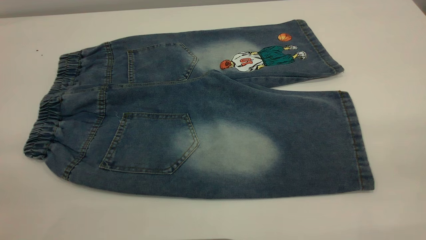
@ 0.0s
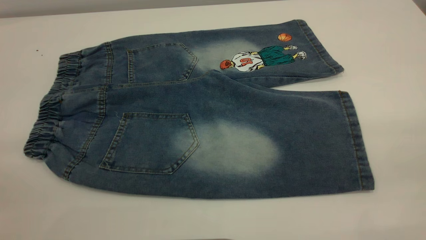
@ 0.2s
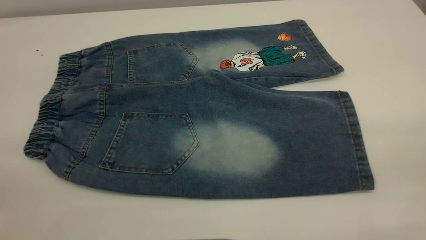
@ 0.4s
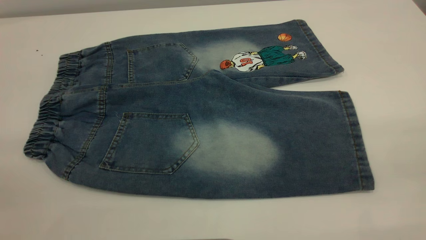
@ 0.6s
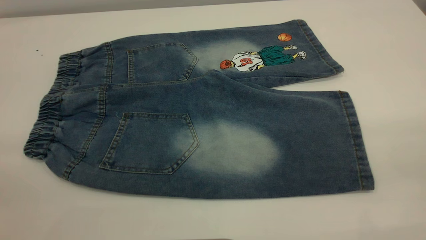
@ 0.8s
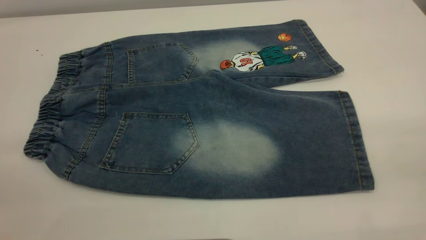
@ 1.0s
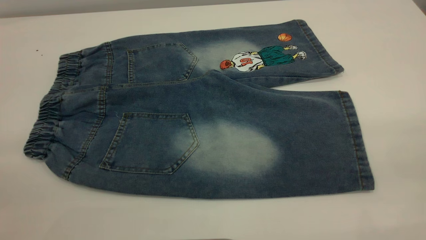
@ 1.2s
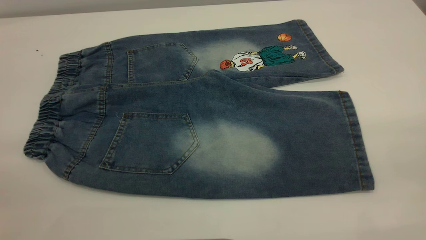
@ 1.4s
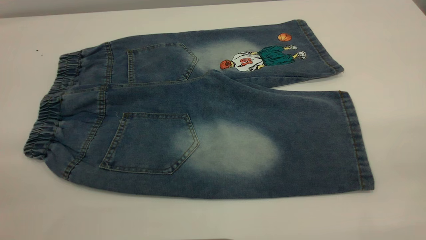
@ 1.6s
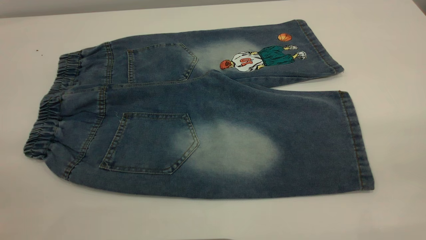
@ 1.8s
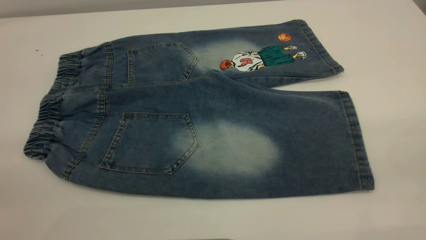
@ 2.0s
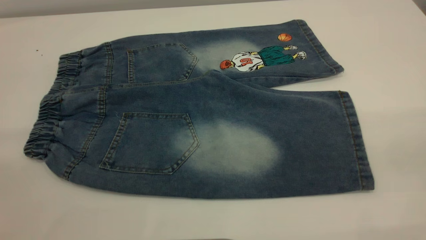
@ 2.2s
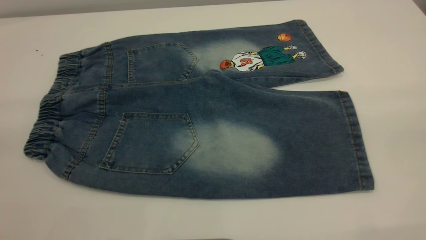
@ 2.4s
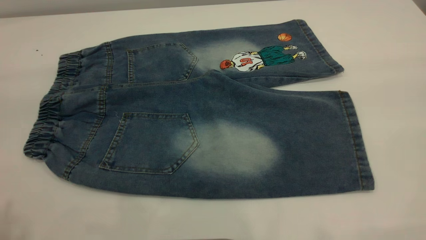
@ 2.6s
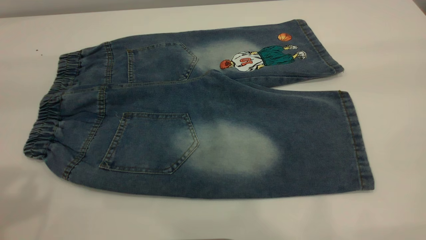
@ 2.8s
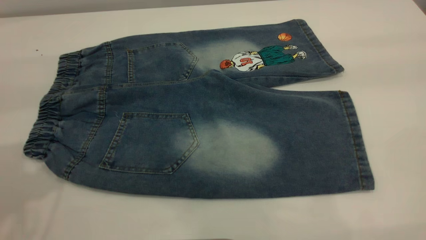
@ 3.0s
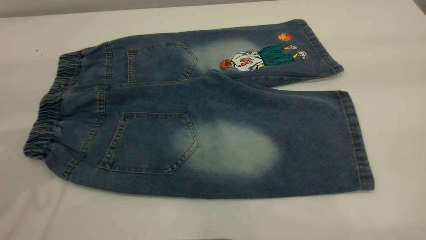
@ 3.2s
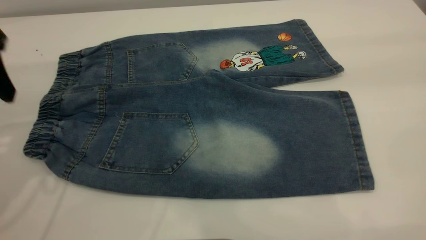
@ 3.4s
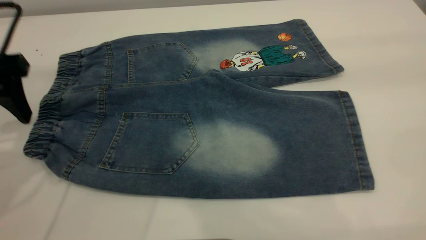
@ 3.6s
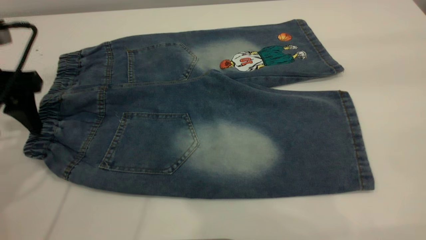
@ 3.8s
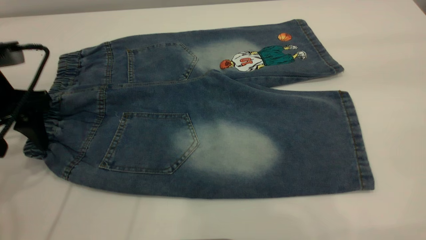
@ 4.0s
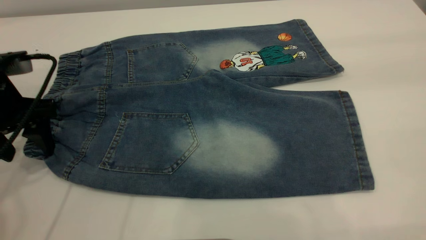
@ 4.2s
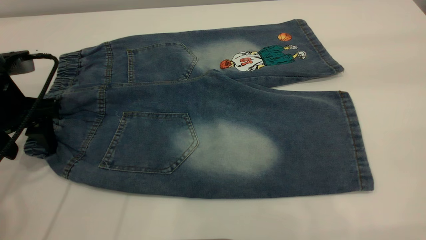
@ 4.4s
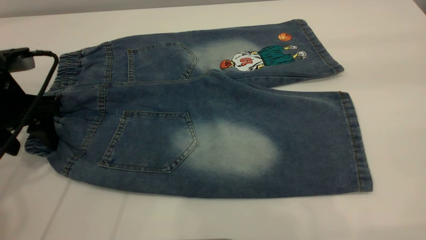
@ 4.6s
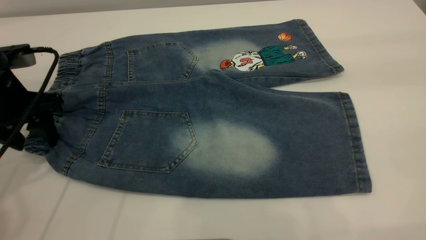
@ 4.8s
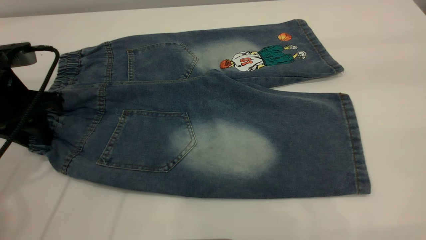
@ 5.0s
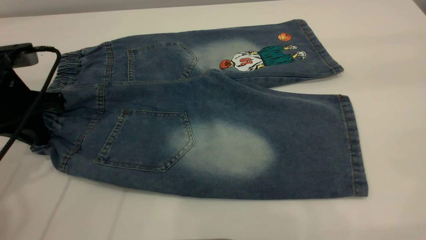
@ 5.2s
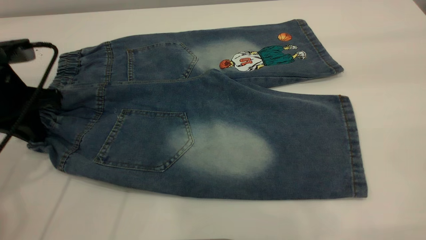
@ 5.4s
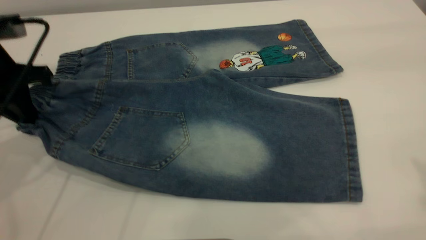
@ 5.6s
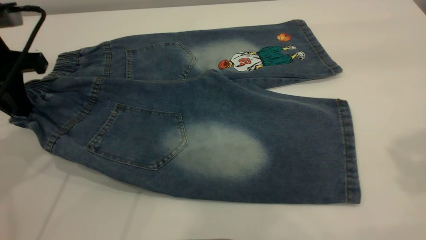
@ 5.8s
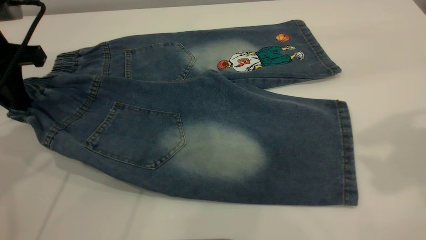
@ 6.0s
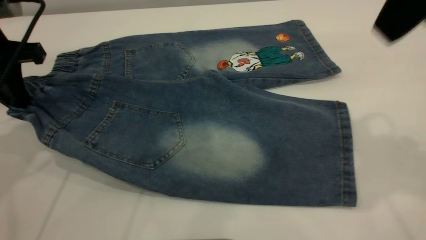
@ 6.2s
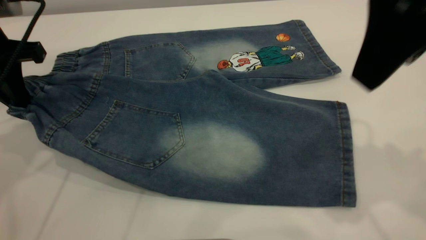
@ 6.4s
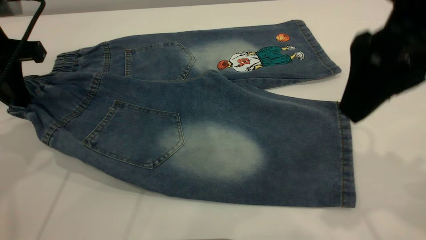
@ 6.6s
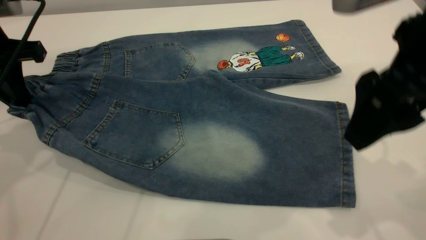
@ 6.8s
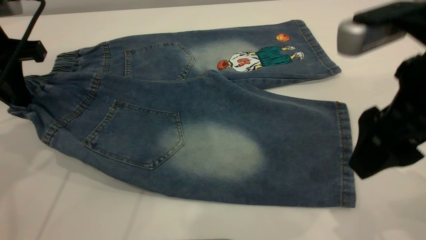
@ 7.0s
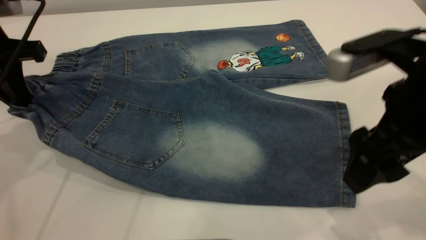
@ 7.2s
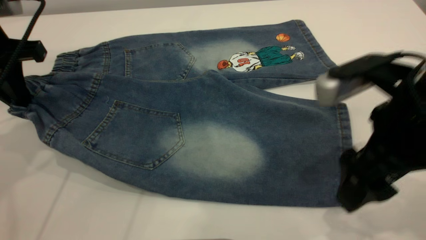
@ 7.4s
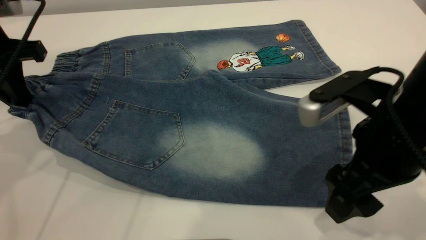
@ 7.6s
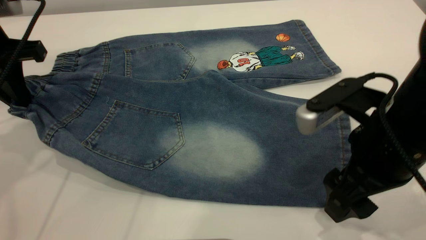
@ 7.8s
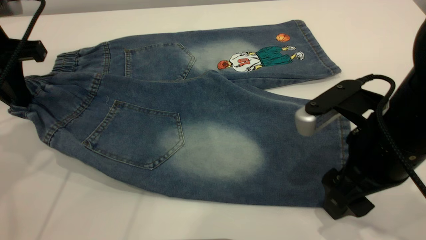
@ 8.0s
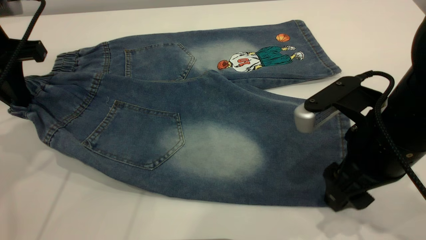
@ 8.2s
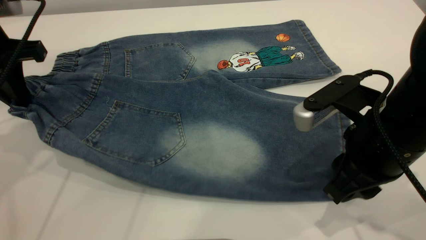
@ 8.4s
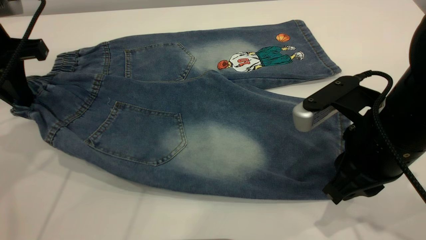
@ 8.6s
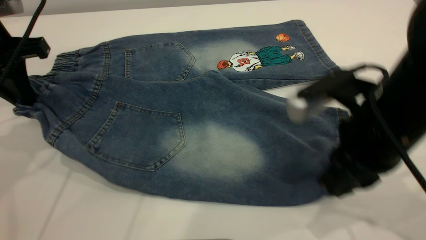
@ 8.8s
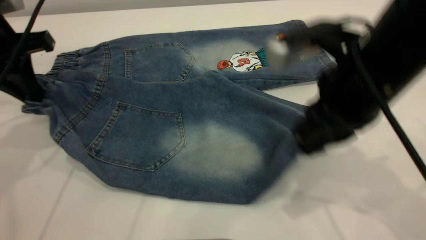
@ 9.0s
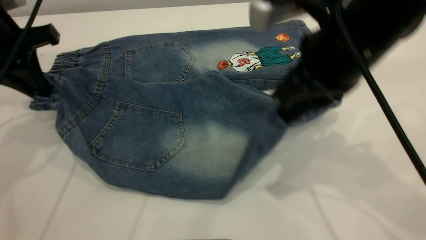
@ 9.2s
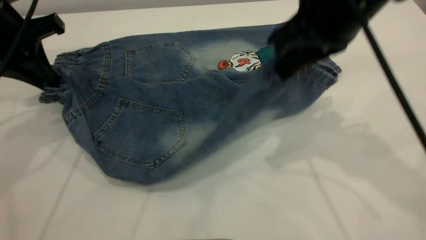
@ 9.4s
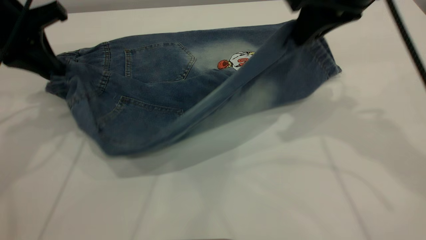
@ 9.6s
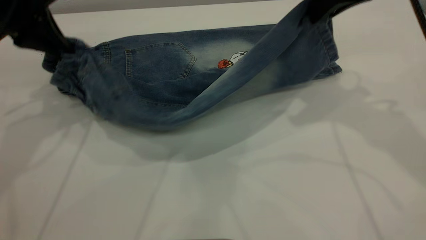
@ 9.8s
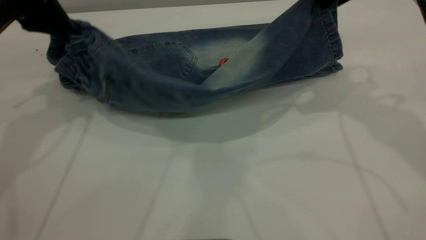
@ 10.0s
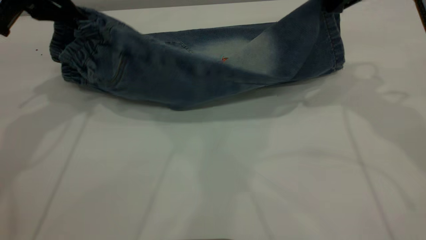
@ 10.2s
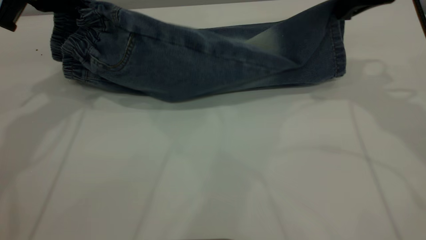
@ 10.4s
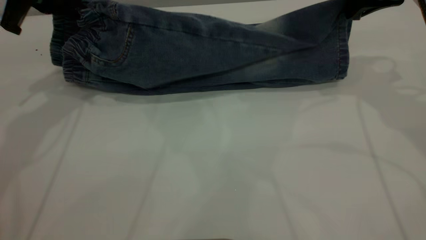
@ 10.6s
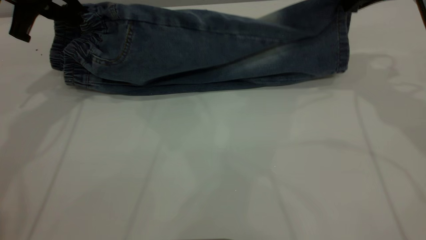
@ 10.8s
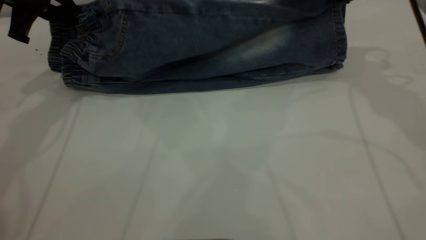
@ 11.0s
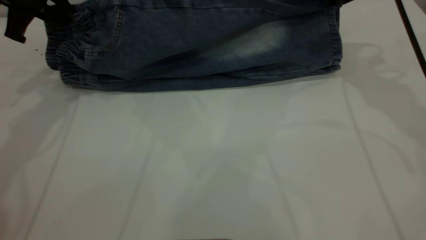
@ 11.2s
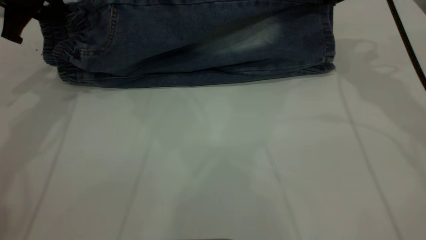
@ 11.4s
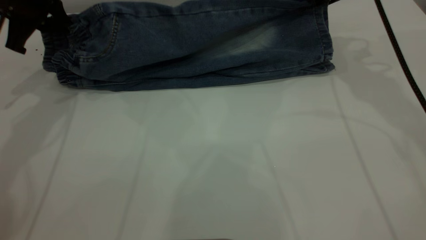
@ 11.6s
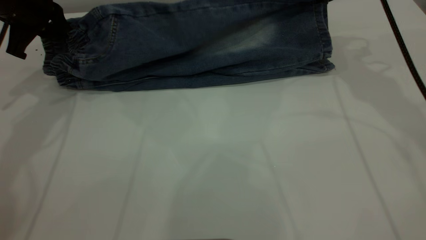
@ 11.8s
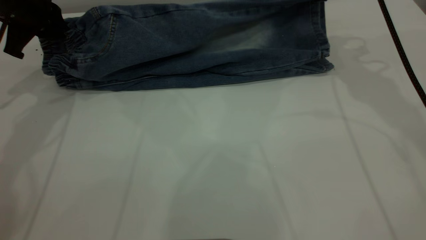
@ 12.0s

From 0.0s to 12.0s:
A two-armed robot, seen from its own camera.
From 0.0s to 1.6s: Neither gripper changes place.
From 3.0s to 4.4s: The left gripper moves downward and forward, roughly 20 cm.
From 4.4s to 6.0s: The right gripper shifts some 10 cm forward and downward. Meanwhile the left gripper goes roughly 5 cm upward, and closes its fingers.
From 6.0s to 7.6s: The right gripper goes about 20 cm downward.
From 7.6s to 9.0s: The right gripper is displaced upward by roughly 5 cm, and closes.
From 9.0s to 10.4s: The right gripper shifts approximately 15 cm forward and to the right. Meanwhile the left gripper heads forward, covering roughly 5 cm.
From 10.4s to 12.0s: The left gripper travels downward by about 5 cm. The right gripper travels forward by roughly 5 cm.

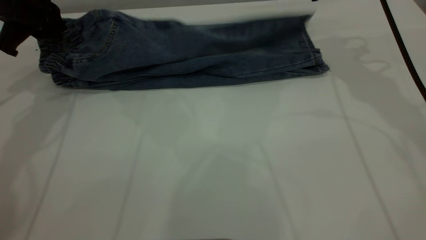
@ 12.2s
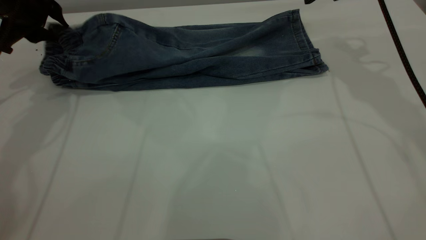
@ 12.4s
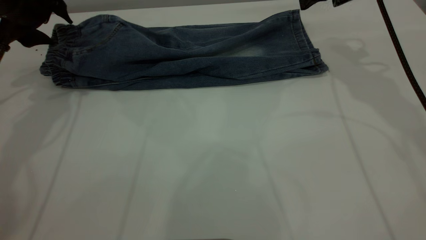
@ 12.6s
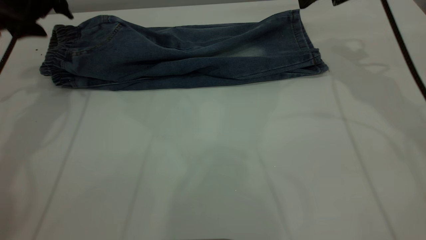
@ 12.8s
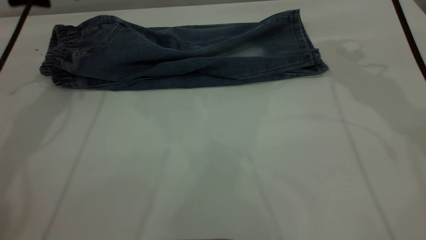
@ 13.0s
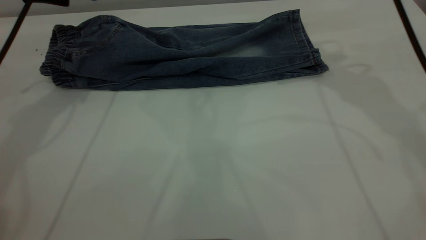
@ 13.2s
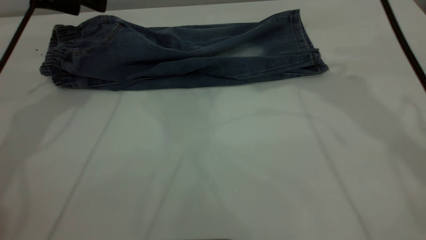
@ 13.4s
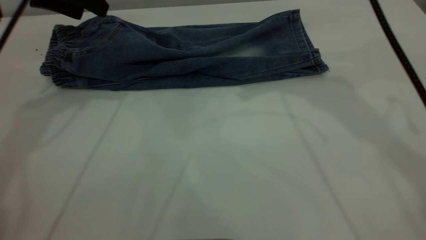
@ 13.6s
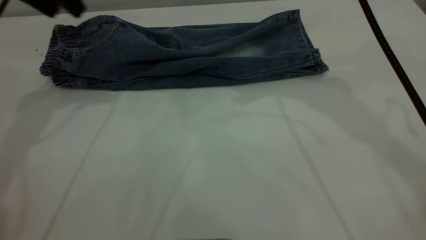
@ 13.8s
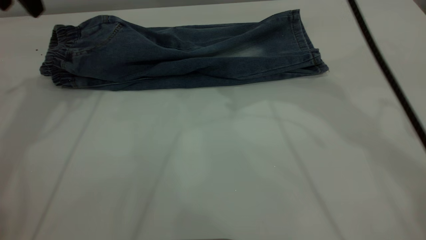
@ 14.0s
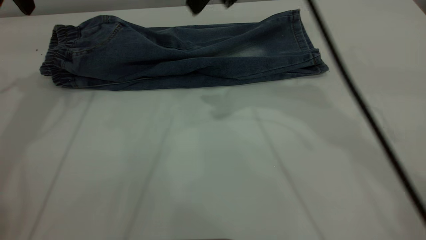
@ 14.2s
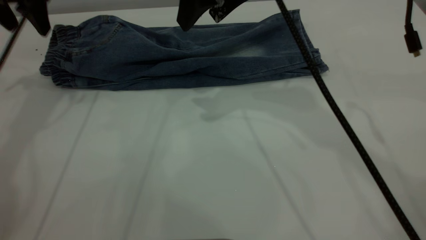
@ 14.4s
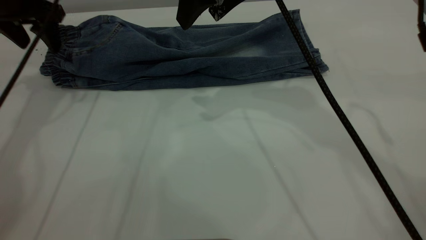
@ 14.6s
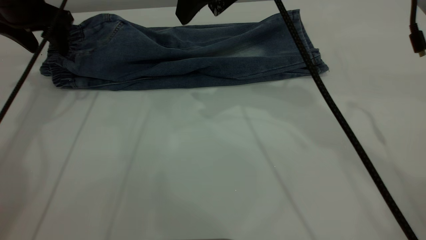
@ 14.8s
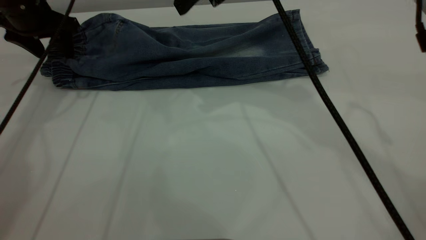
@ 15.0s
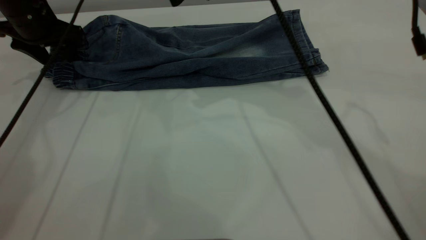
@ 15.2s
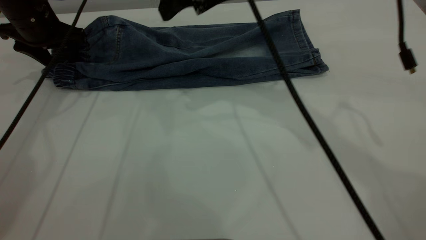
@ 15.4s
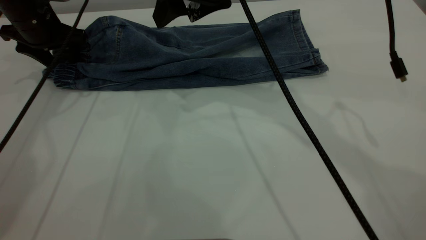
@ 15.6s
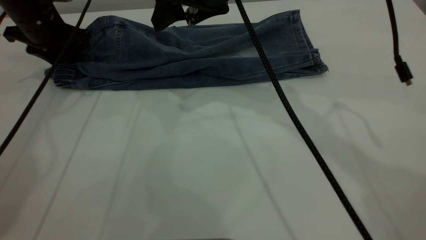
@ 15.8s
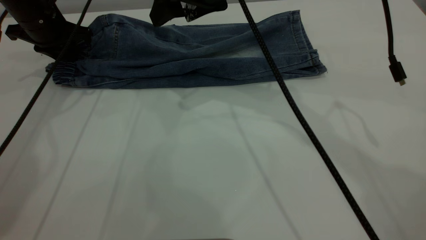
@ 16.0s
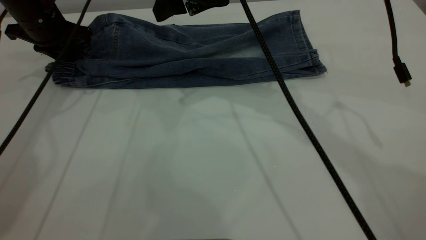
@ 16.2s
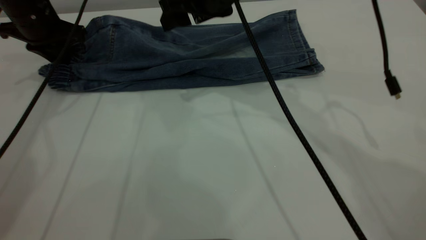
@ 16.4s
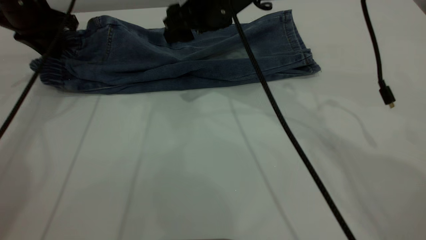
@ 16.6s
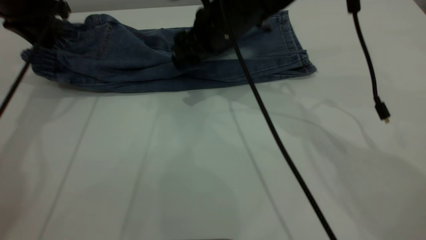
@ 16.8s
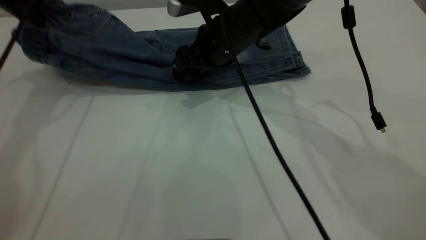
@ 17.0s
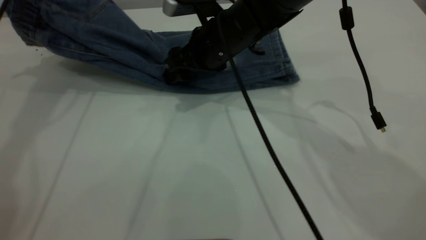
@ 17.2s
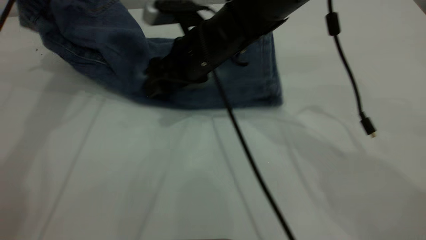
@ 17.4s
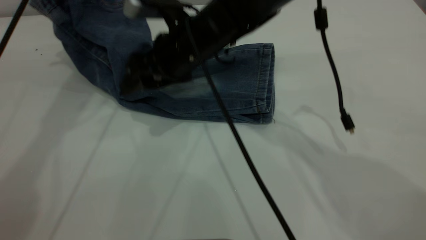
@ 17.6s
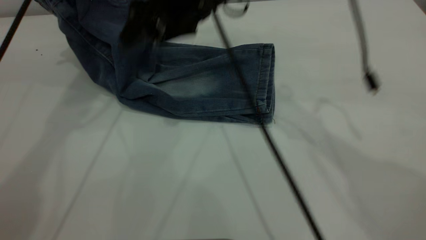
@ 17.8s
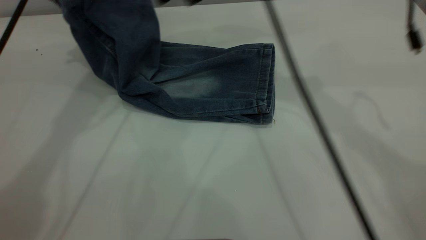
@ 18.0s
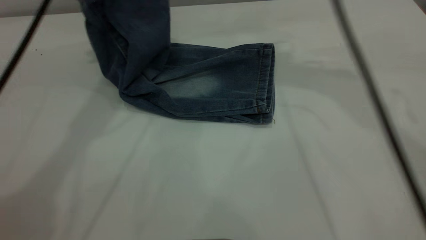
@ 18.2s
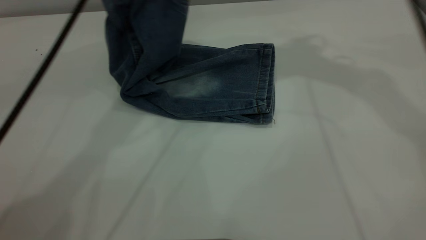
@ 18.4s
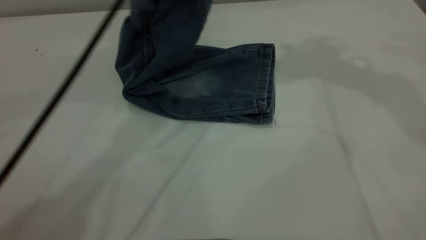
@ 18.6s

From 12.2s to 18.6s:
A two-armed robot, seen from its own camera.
From 12.2s to 13.8s: The right gripper is displaced to the left and upward by about 15 cm, and opens. The left gripper travels upward by roughly 10 cm, and opens its fingers.
From 13.8s to 15.4s: The right gripper heads to the left and downward, covering some 10 cm; the left gripper travels downward by approximately 15 cm.
From 15.4s to 17.0s: The right gripper shifts approximately 10 cm downward. The left gripper moves upward, about 10 cm, and closes its fingers.
From 17.0s to 18.6s: The right gripper travels upward and to the right by approximately 35 cm. The left gripper moves to the right, approximately 25 cm.
